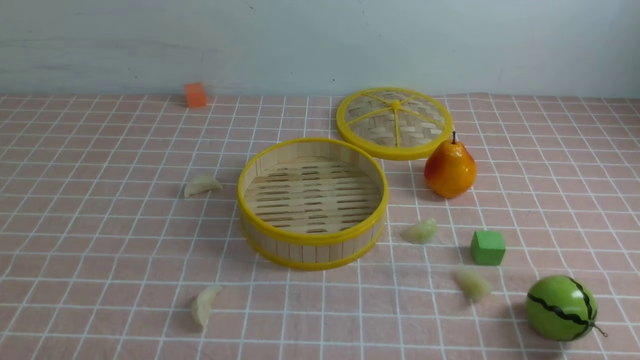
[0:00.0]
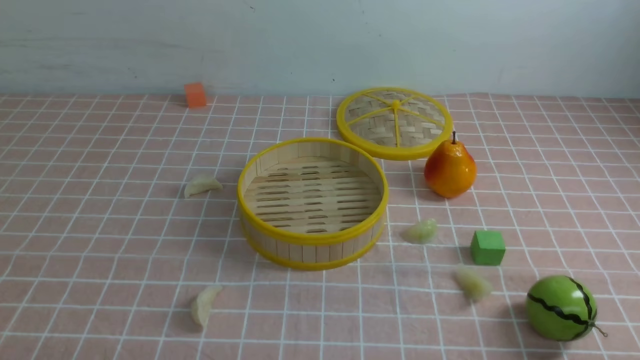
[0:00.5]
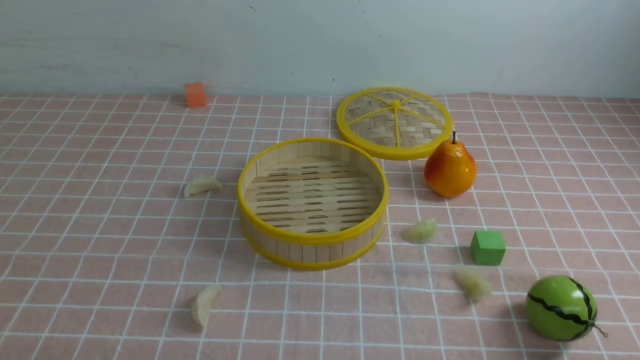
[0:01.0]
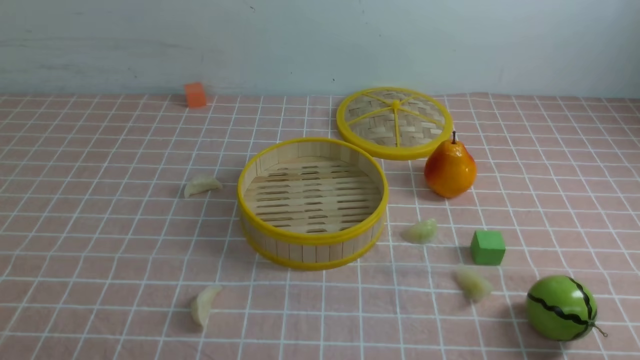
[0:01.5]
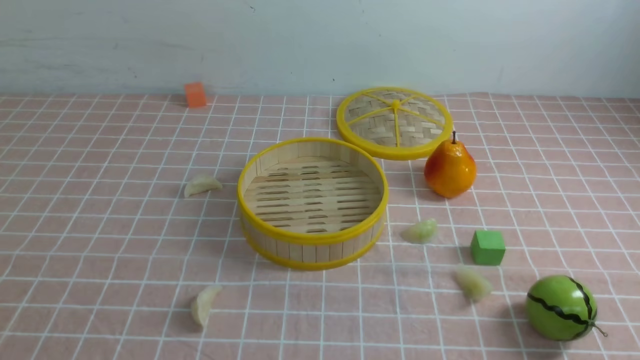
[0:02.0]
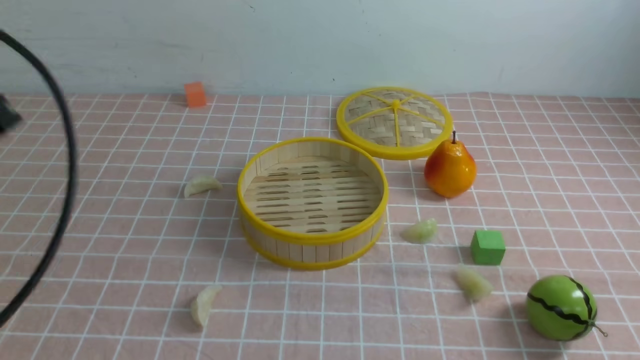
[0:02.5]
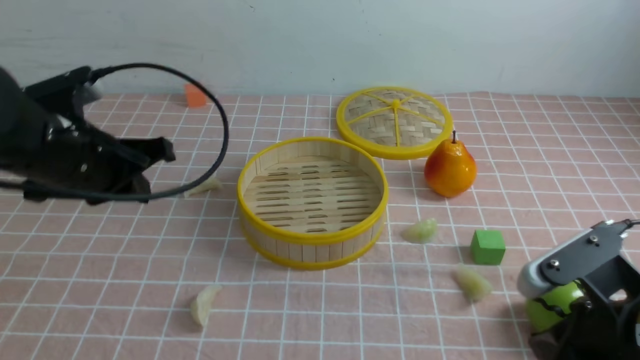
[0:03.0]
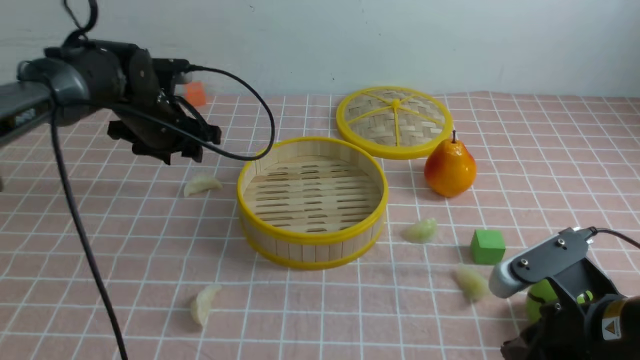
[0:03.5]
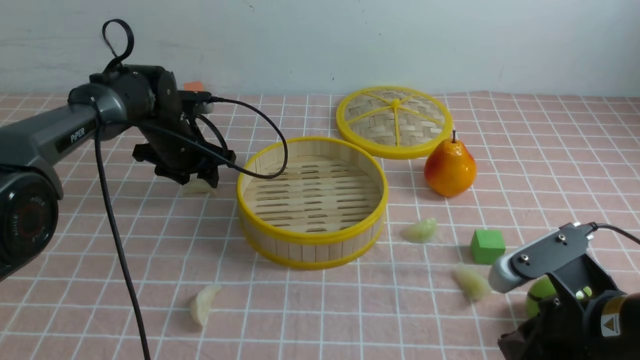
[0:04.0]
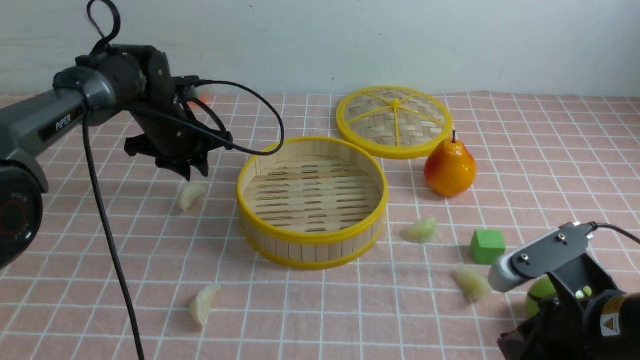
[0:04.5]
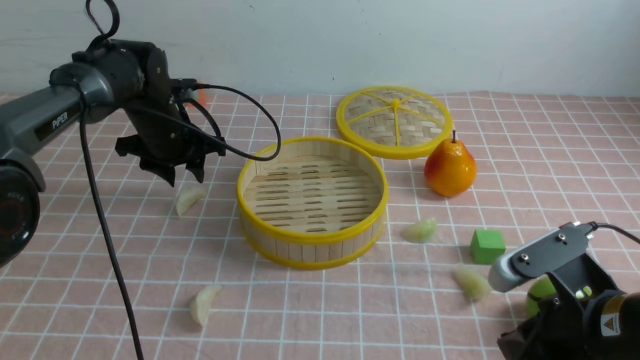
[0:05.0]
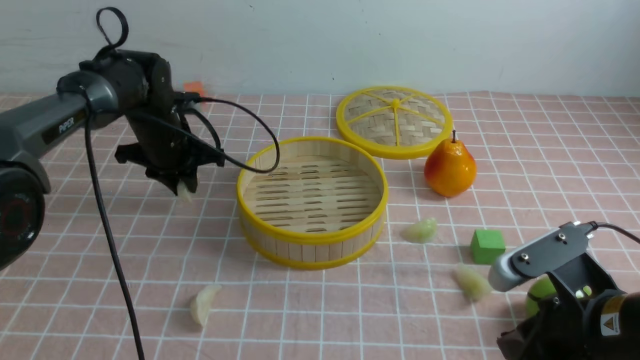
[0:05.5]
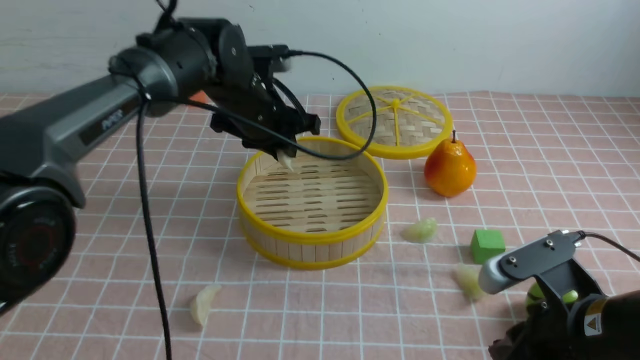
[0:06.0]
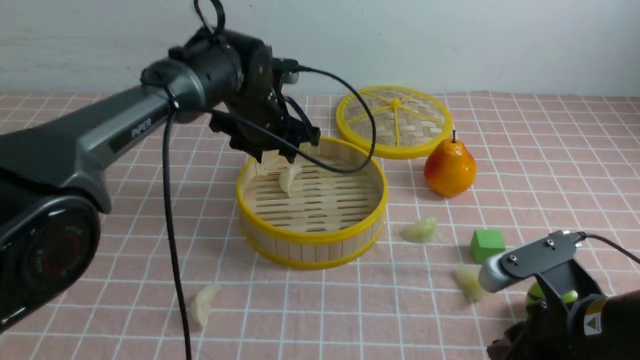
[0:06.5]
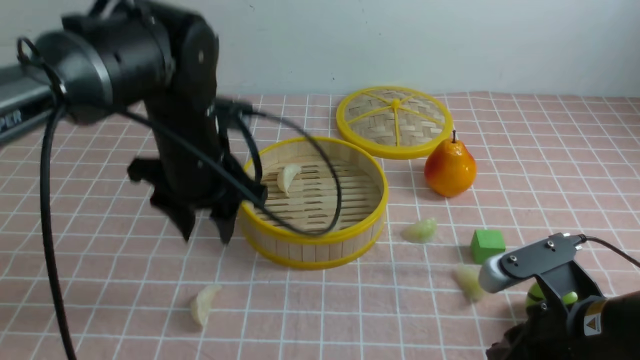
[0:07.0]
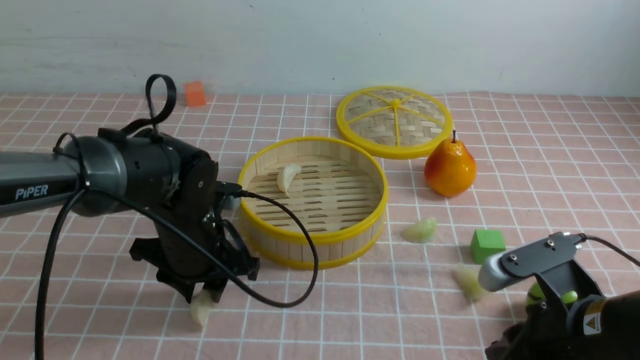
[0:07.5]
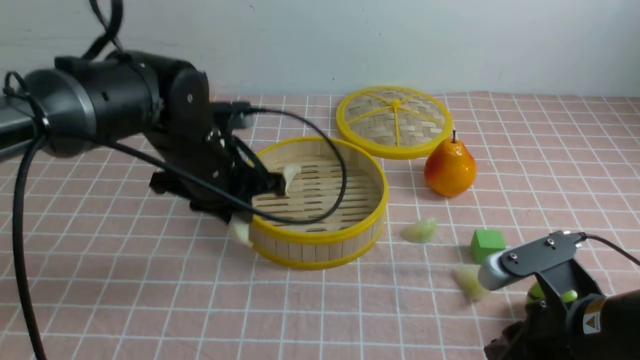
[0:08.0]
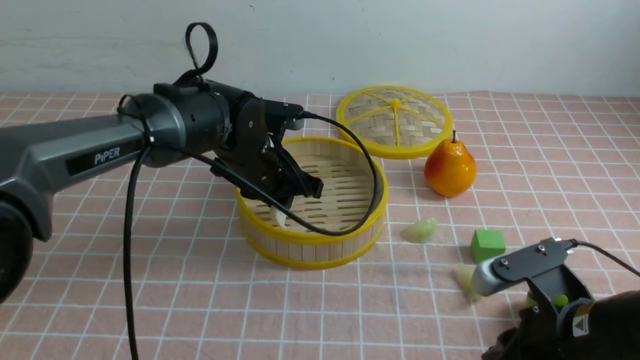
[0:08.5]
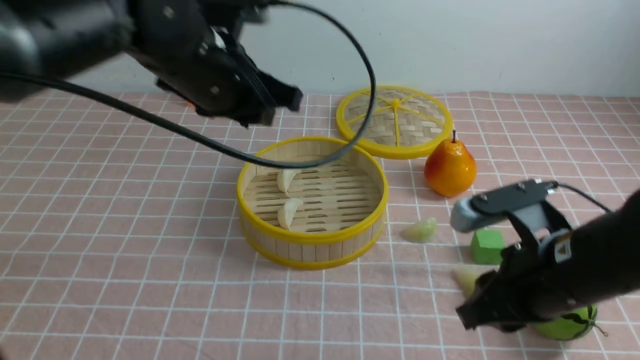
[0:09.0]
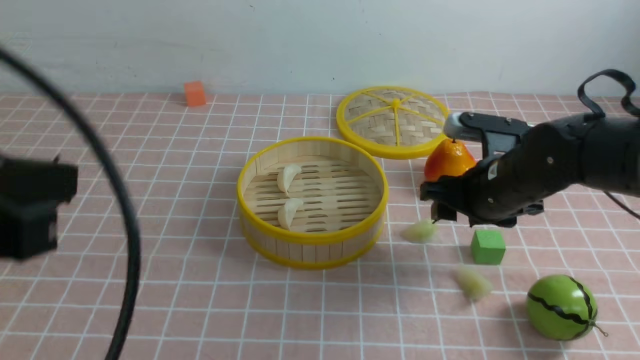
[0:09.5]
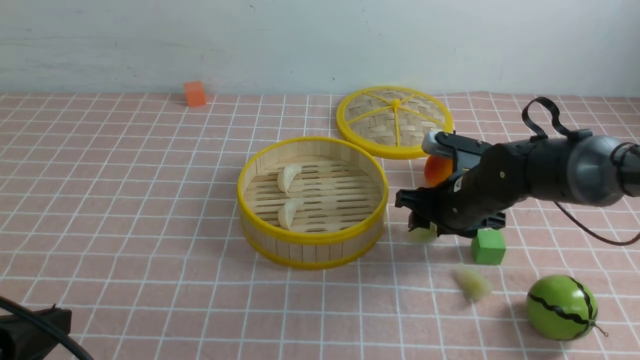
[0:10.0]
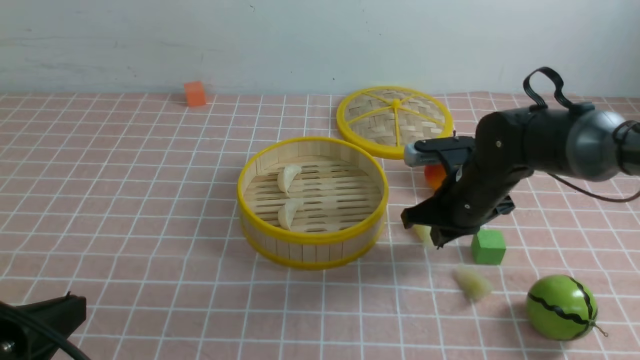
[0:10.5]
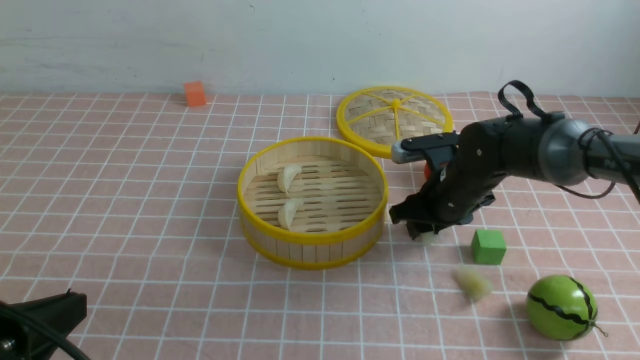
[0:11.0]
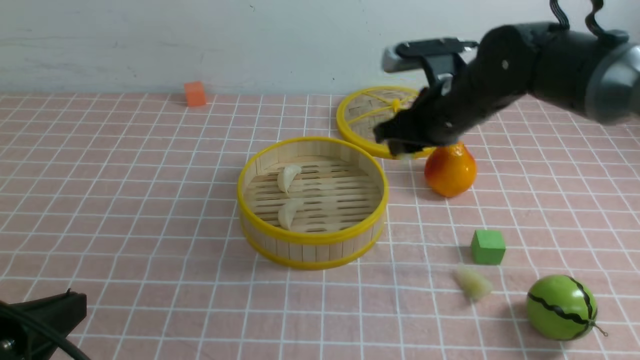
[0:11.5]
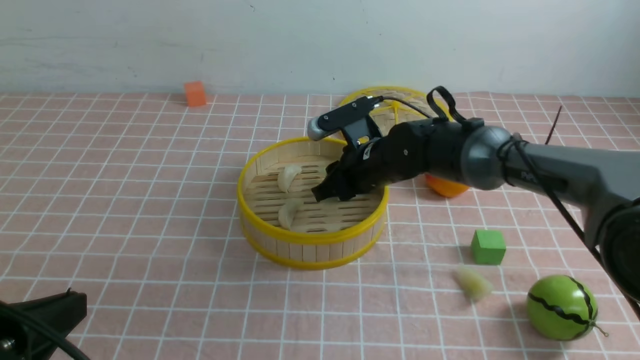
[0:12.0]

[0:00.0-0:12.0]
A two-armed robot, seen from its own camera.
Task of the whole recording: put the dumplings into the steamer on the table with the pink tablecloth.
Step, 0:00.0 to 0:05.0: use the left arm to grab a dumpling.
Step, 0:05.5 to 0:06.0: use the left arm to put the dumpling into the steamer.
Step, 0:06.5 to 0:07.5: use the left arm to grab a dumpling.
Step, 0:08.0 to 0:08.5: use the left arm to put the dumpling into the steamer.
Step, 0:09.0 to 0:11.0: use the right arm to grab a dumpling.
0:02.0 to 0:04.0: The left gripper shifts roughly 50 cm forward, and opens its fingers, while the right gripper shifts about 20 cm forward, to the left and downward.
0:04.0 to 0:06.0: The left gripper is displaced to the right and upward by some 15 cm, and closes its fingers.
0:06.0 to 0:08.0: The left gripper shifts about 10 cm backward, and opens, then closes again.
0:08.0 to 0:10.0: The left gripper heads backward and to the left, covering roughly 30 cm, and closes up; the right gripper shifts about 20 cm forward, and opens.
0:10.0 to 0:12.0: The right gripper heads to the left, covering about 10 cm, and closes and opens again.

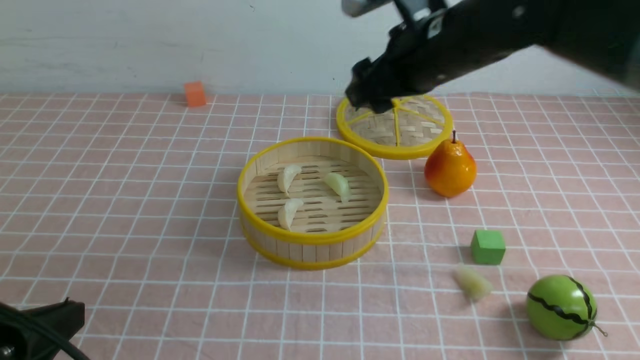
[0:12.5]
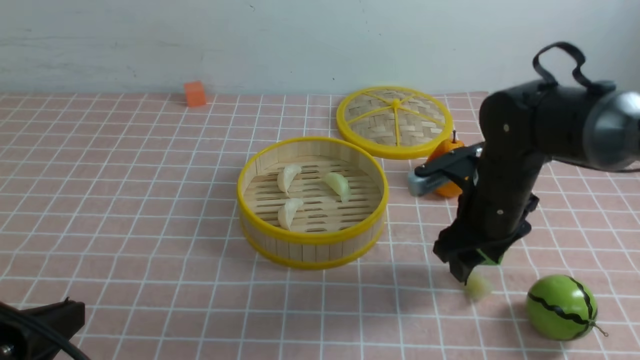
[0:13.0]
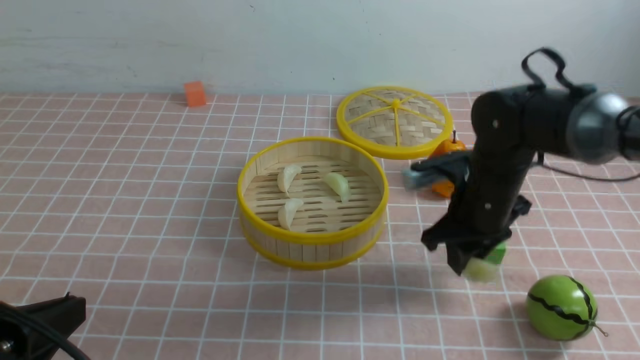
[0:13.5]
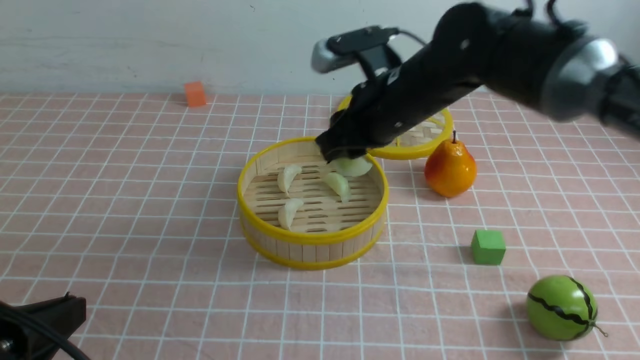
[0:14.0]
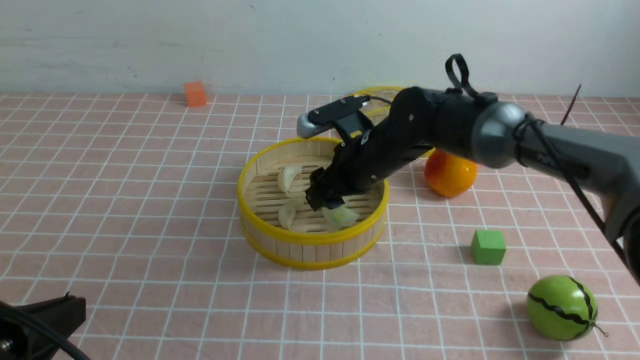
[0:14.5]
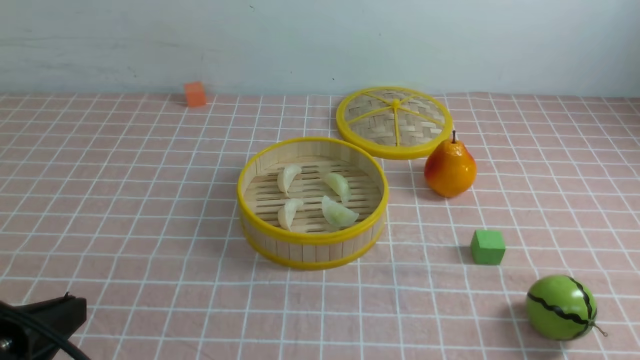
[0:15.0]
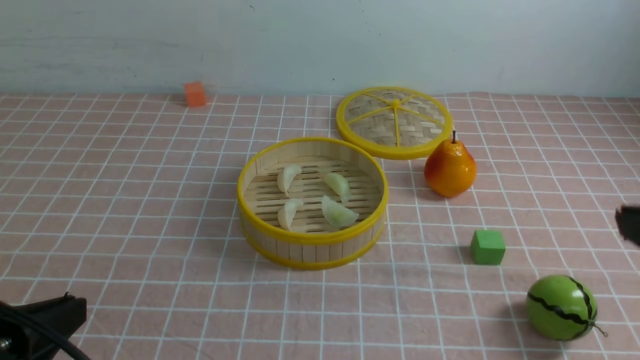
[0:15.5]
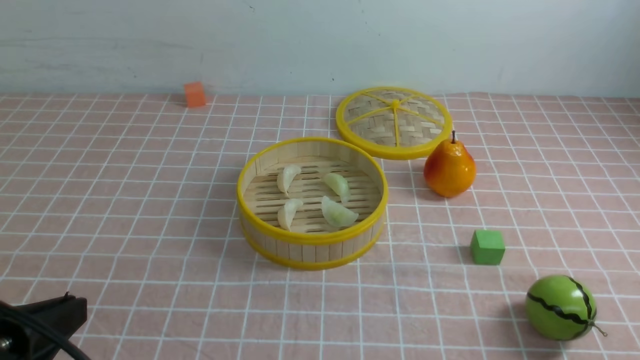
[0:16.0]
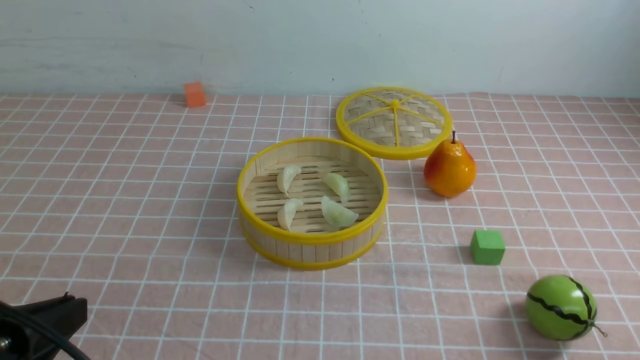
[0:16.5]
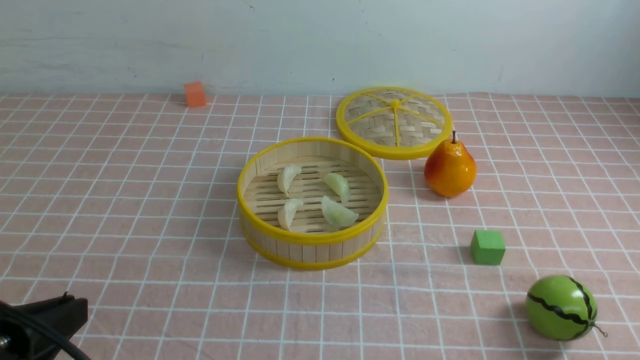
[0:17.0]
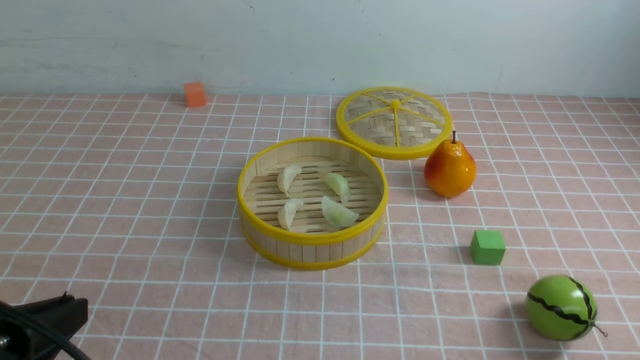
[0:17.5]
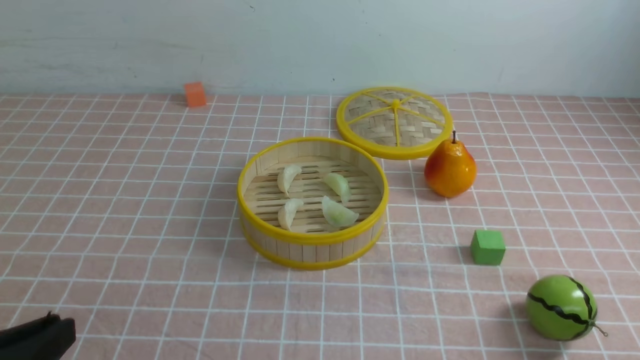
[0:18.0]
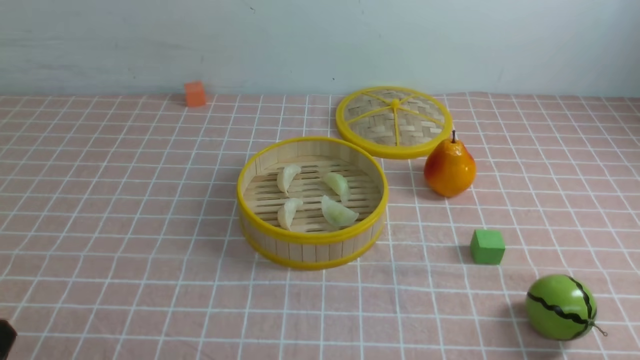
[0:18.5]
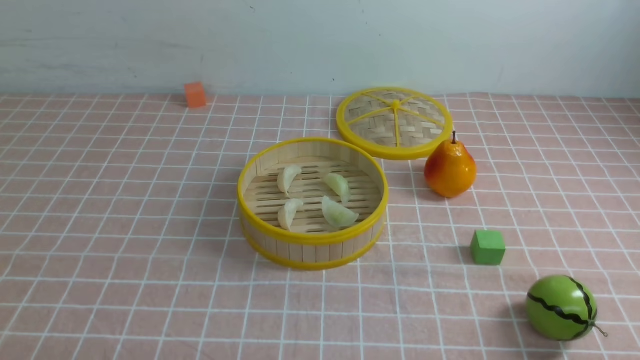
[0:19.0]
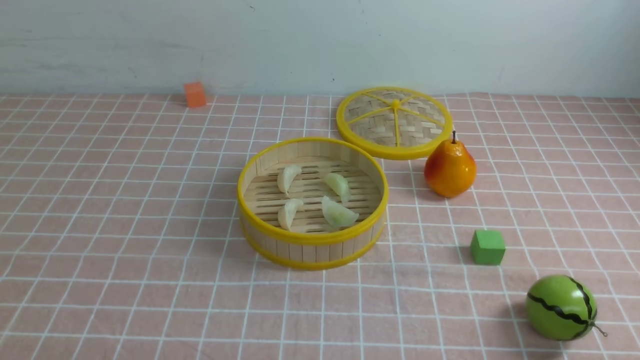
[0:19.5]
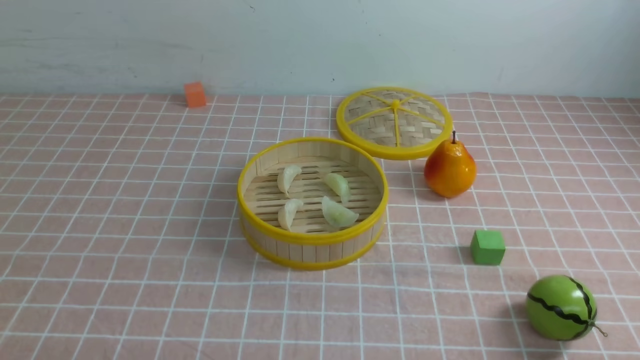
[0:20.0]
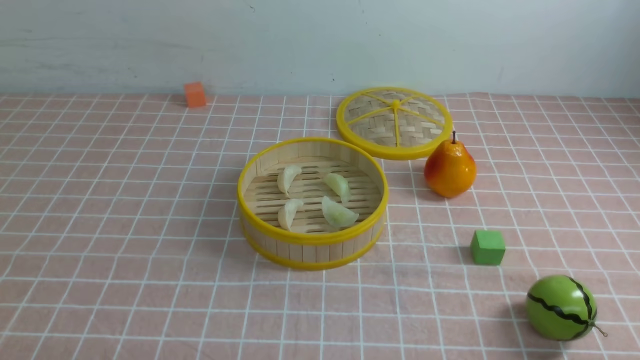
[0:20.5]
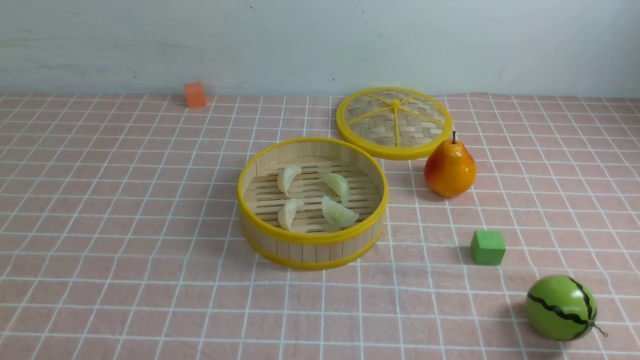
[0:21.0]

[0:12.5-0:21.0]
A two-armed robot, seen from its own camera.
Task of the whole recording: put the dumplings into the steamer on the table with the pink tablecloth.
Step, 0:12.5 to 0:13.0: use the right arm to grab a dumpling.
Step, 0:13.5 to 0:14.5: use the right arm to put the dumpling into the steamer.
0:12.5 to 0:14.5: The right gripper moves downward, approximately 10 cm, and closes, then reopens.
0:14.5 to 0:16.5: The right gripper travels backward and to the right by approximately 40 cm, and closes its fingers.
0:16.5 to 0:19.0: The left gripper moves downward, roughly 10 cm.
0:19.0 to 0:21.0: The two grippers keep their place.
